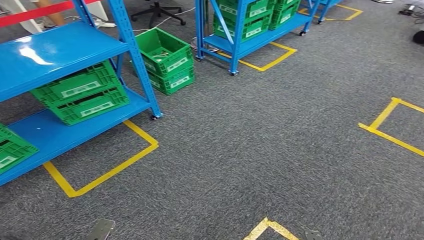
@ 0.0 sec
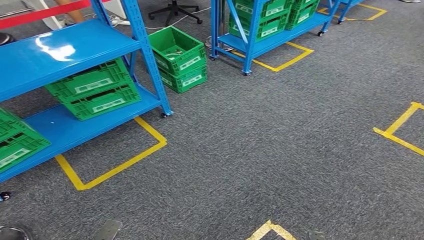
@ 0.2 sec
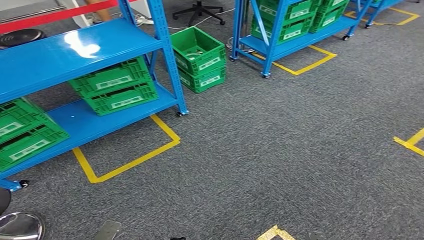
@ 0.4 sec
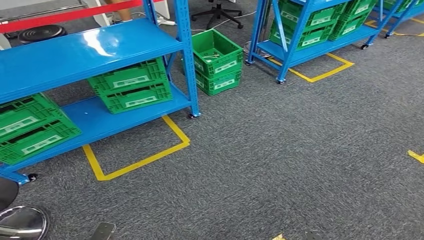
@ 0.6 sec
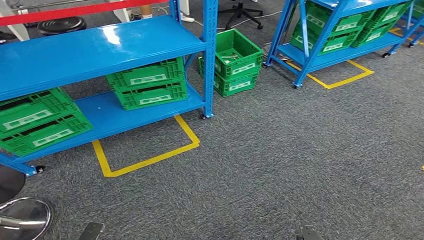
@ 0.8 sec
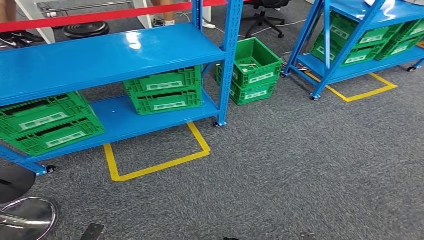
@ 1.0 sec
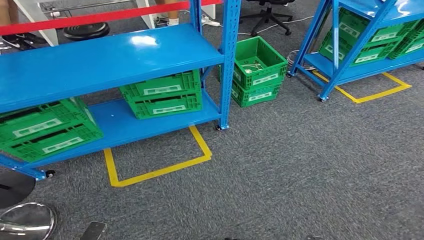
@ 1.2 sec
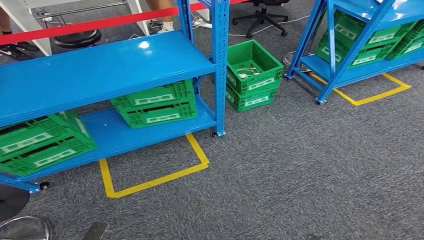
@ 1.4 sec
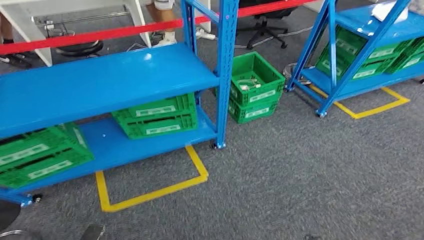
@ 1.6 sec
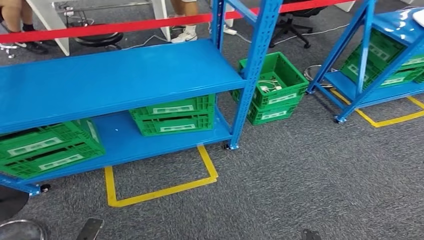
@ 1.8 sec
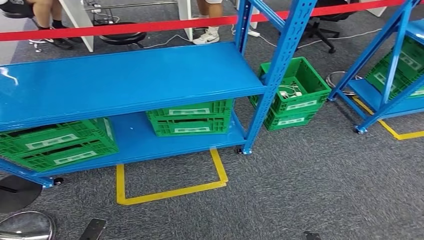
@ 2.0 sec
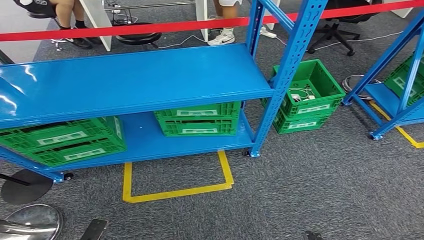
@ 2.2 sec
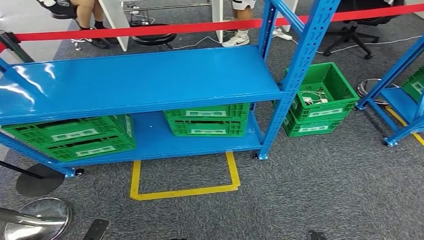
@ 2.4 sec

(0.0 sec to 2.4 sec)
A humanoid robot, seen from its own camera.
Step, 0.0 sec - 2.4 sec: Move to the initial position at the workbench.
